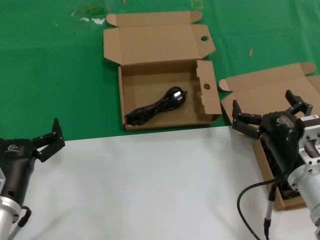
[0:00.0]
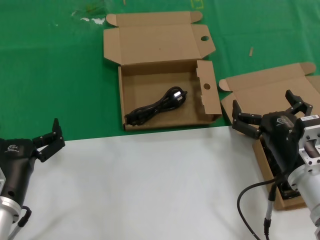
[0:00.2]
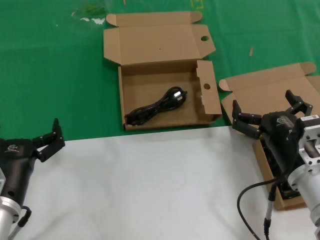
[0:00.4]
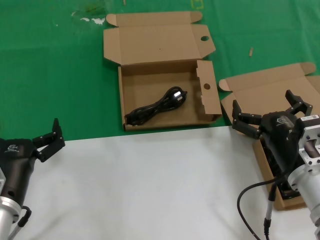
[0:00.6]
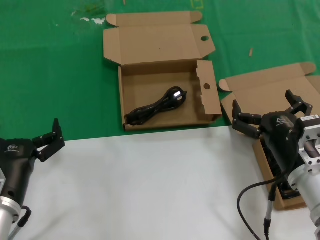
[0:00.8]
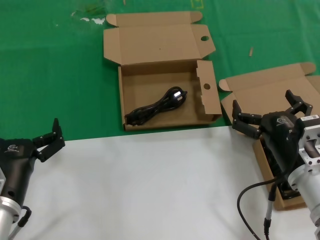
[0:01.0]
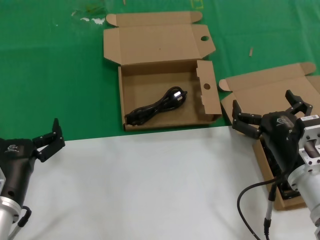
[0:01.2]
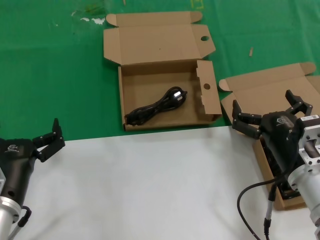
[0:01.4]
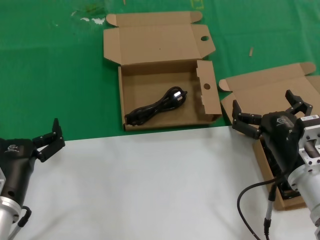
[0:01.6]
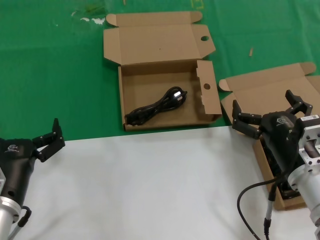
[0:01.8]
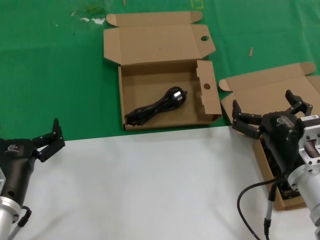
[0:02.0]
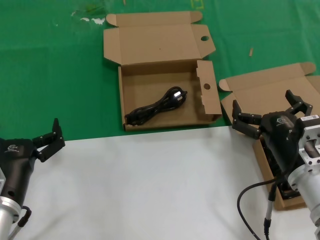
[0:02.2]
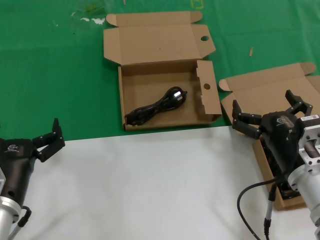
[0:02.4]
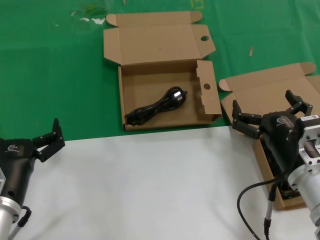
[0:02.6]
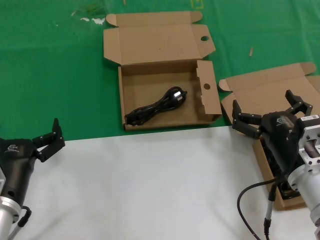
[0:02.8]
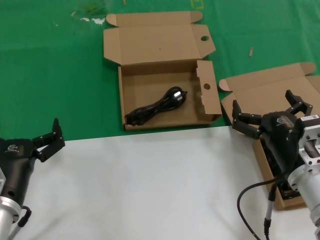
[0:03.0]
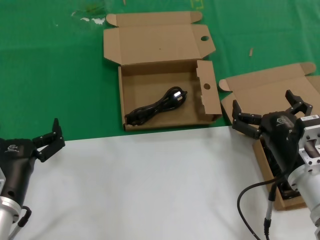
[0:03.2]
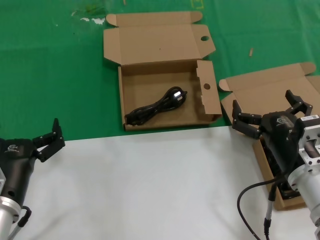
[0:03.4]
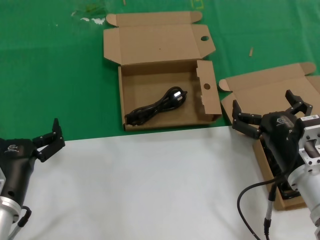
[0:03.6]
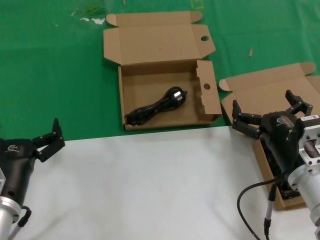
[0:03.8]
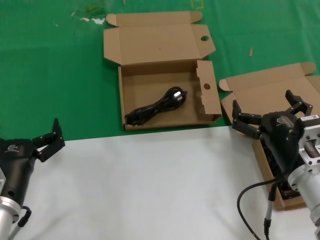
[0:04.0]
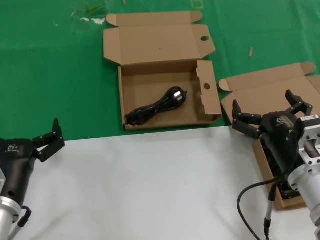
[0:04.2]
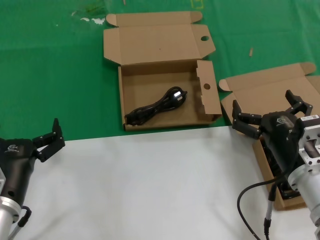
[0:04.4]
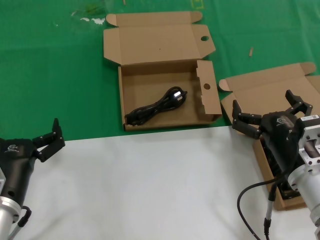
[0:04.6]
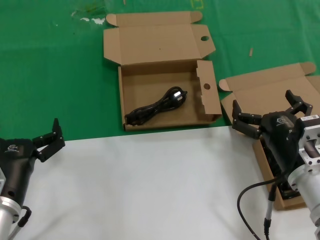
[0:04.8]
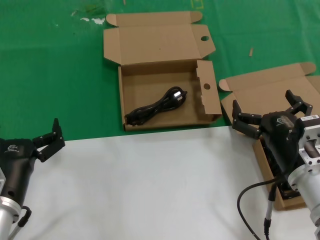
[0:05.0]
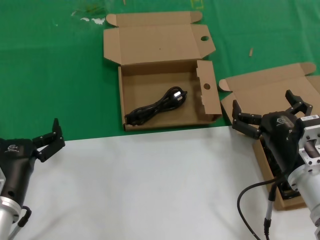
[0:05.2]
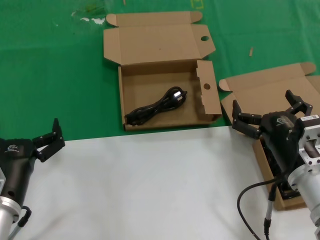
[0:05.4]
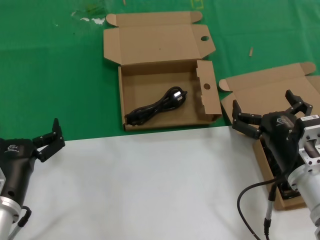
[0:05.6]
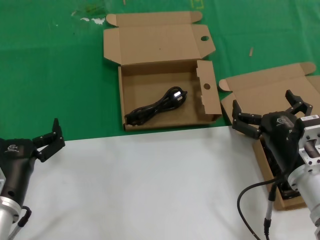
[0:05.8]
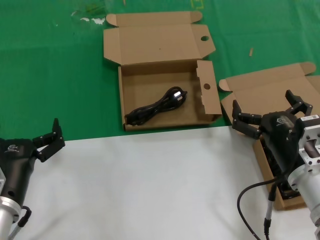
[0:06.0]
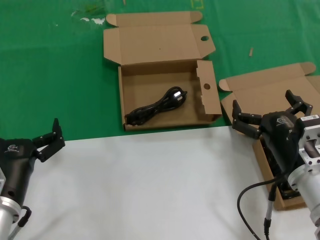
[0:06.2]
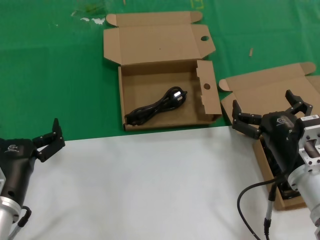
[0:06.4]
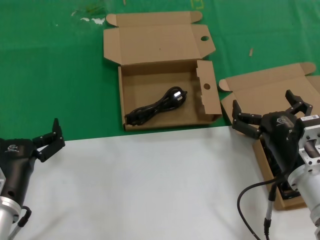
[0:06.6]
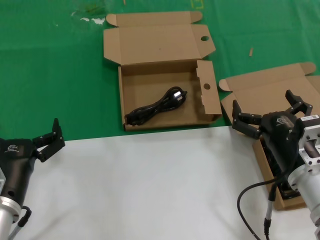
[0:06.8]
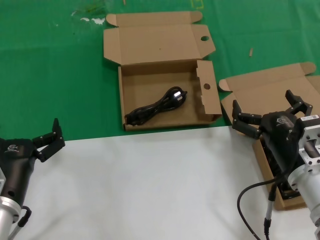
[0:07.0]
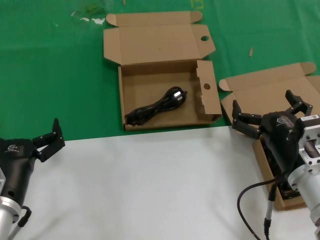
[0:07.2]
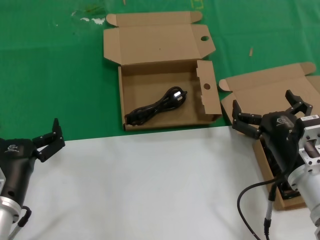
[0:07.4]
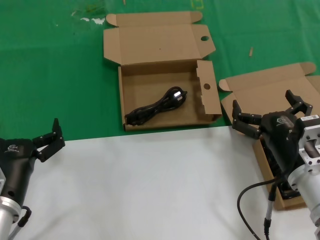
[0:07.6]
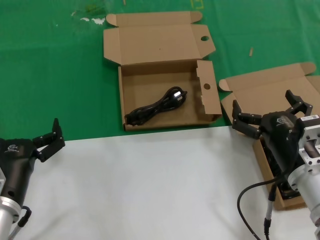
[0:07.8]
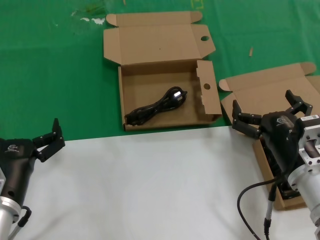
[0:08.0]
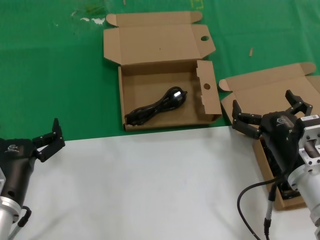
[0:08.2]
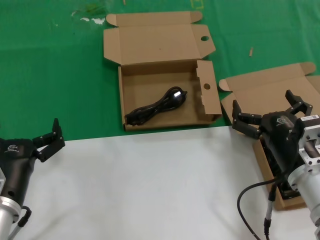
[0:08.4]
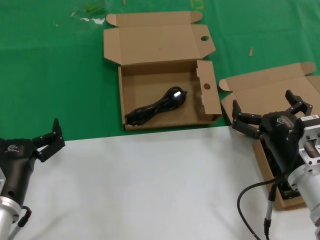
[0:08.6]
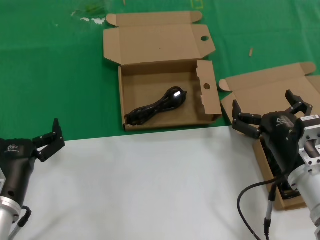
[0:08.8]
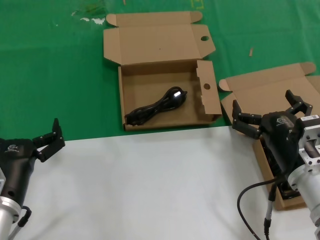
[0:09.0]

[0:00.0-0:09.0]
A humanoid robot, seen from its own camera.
Task of the whole recording: take the parts from the box containing them and put them into an empty box.
0:00.0 to 0:09.0: Both hands stay about where they are.
